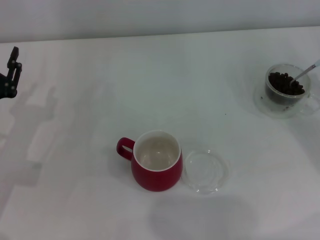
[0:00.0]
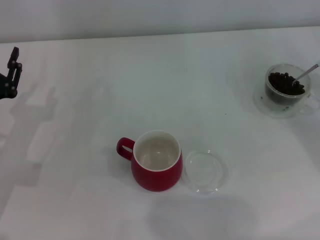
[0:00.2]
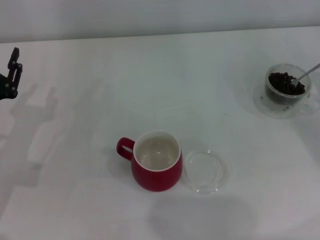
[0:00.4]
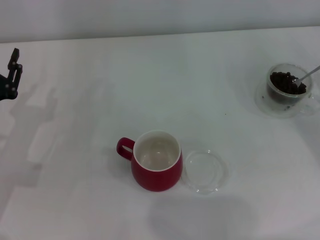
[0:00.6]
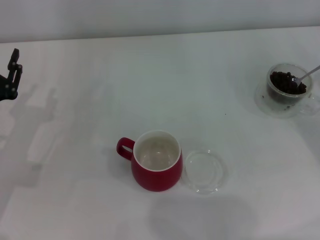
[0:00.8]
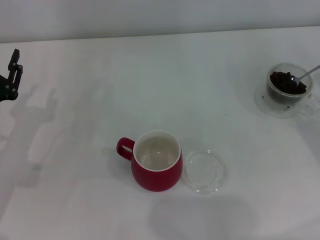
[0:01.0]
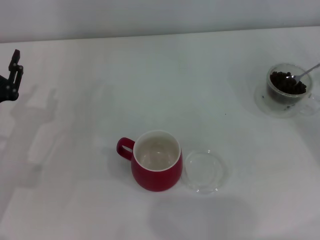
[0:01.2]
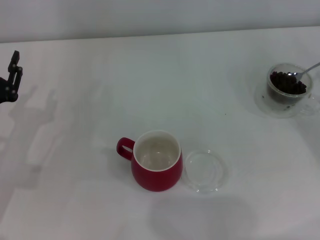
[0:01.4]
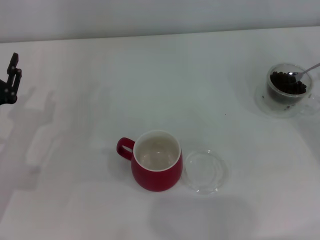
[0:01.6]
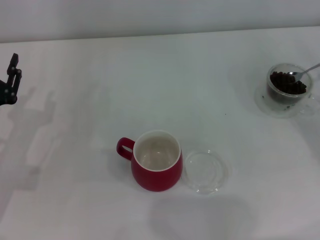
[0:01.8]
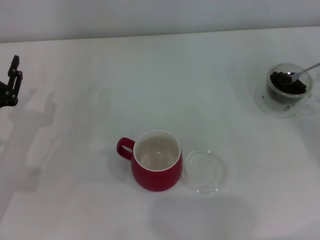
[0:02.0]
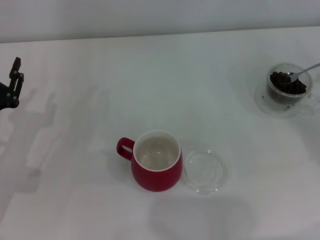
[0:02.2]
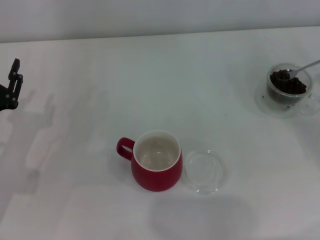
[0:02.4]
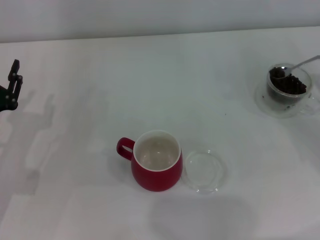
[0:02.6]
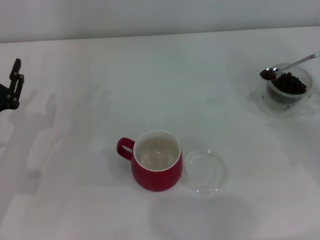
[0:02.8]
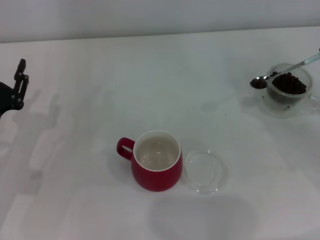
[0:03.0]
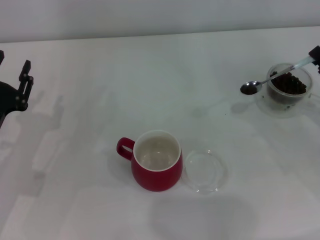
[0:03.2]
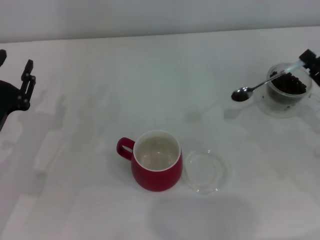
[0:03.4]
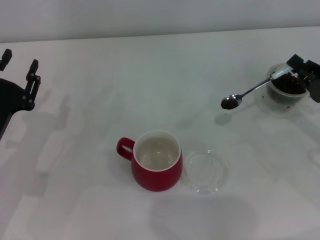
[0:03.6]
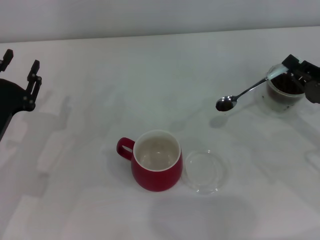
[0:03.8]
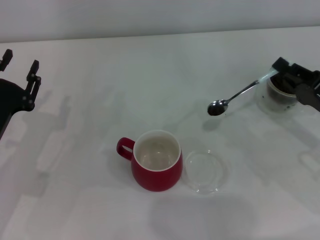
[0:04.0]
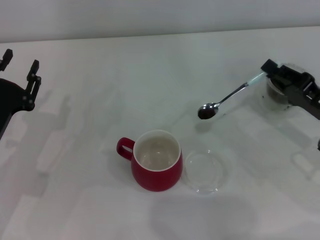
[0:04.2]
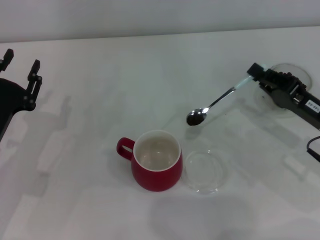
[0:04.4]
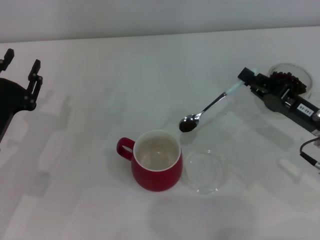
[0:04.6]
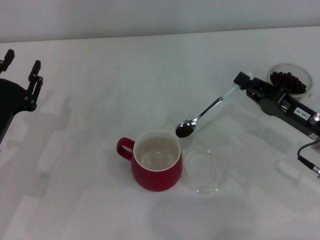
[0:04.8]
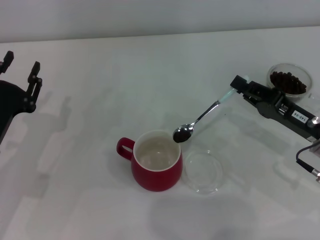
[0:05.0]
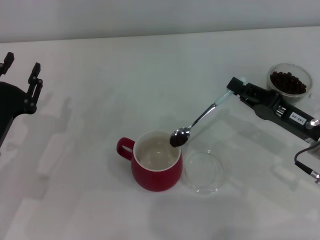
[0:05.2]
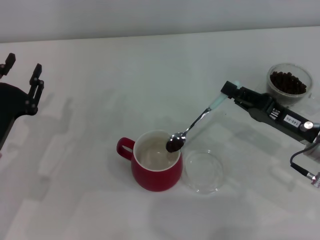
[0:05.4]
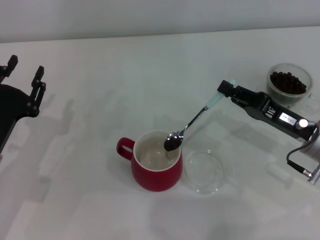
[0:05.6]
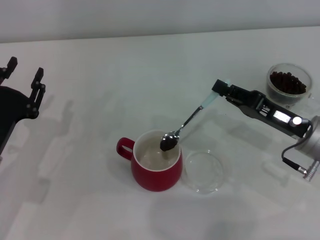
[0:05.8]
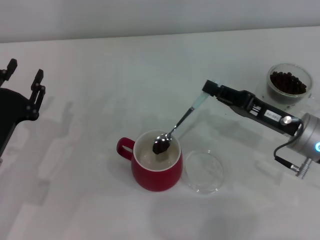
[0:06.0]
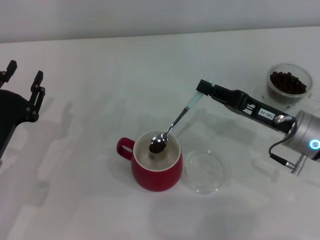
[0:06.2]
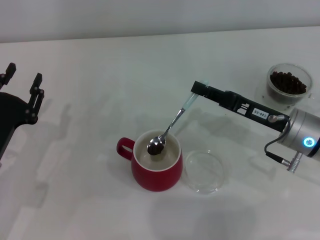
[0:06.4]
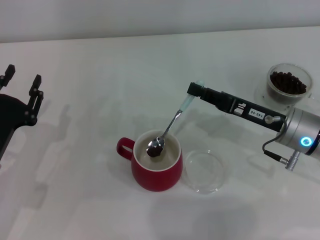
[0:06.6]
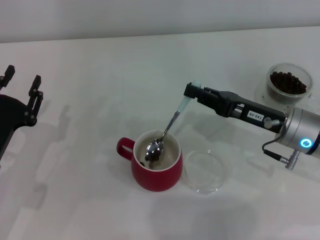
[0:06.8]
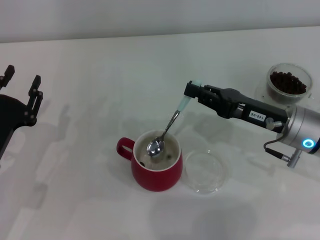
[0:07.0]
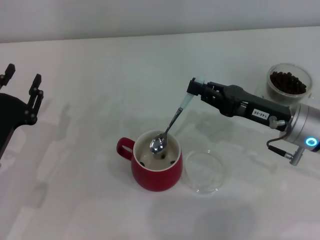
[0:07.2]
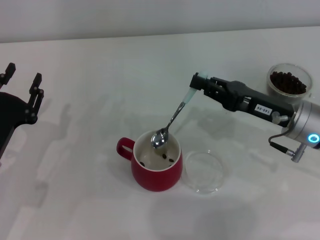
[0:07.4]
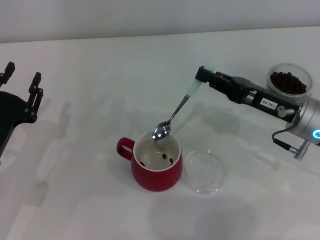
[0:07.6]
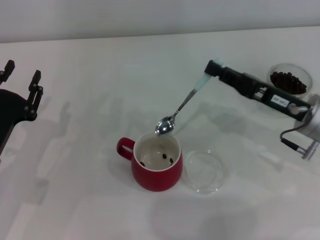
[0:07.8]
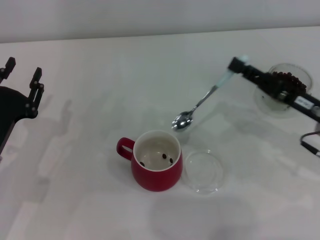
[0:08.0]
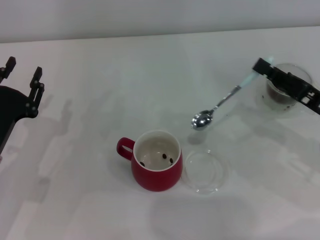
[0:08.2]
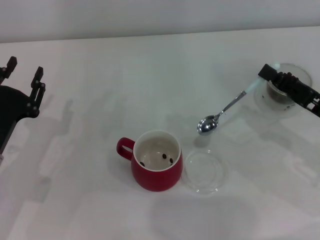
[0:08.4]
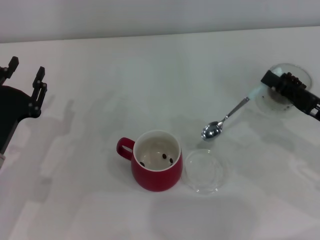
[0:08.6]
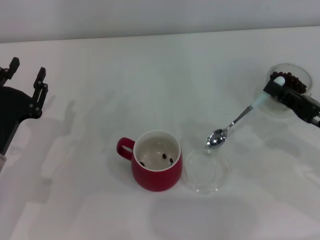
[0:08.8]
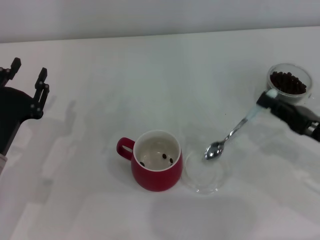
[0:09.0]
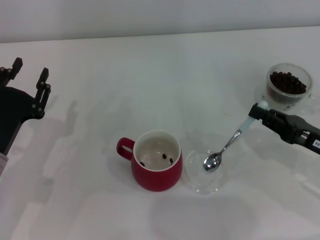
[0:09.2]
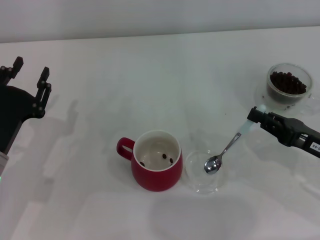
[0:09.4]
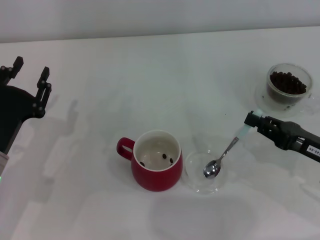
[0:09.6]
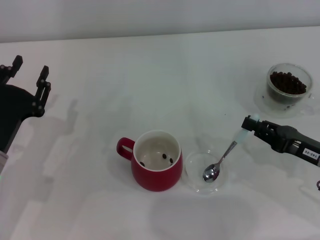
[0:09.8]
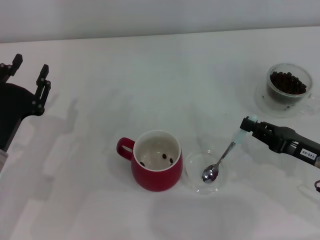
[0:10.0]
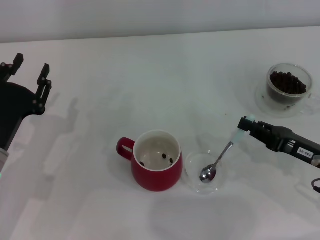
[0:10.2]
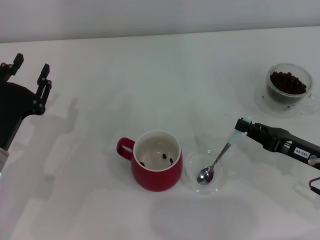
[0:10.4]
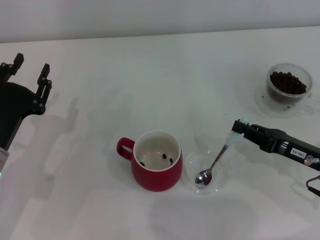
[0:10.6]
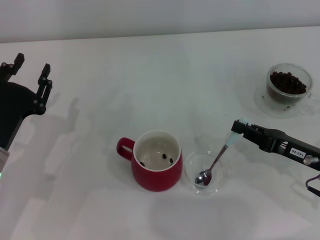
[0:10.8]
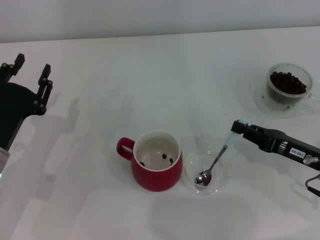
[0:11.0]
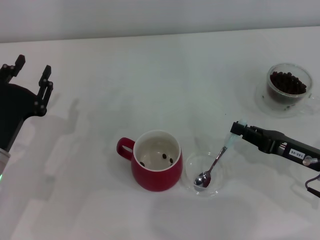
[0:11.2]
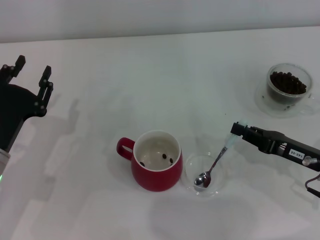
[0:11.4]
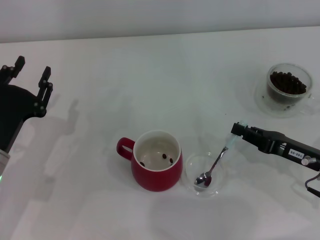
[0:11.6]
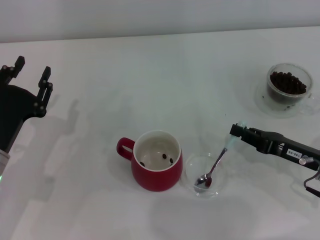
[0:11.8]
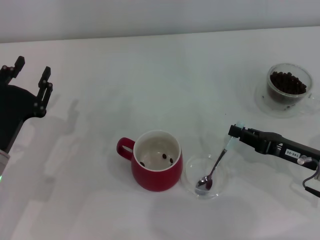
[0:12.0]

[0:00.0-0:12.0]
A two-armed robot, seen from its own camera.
Task of the whole recording: Use a blue spoon to take out the coffee beans from the glass and pour them into the red cup.
Step, 0:00.0 to 0:07.8: Scoop a spoonful of beans into the cup with the right gripper.
0:00.0 to 0:01.6: The grippers move only a little.
0:01.6 to 0:03.0: The grippers move only a little.
0:03.0 to 0:04.4: The right gripper goes about 10 cm to the left.
0:04.4 to 0:06.0: The grippers move only a little.
0:07.6 to 0:09.0: The right gripper is displaced to the right and backward by about 10 cm.
0:09.0 to 0:12.0: The grippers make only small movements.

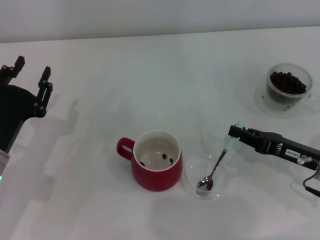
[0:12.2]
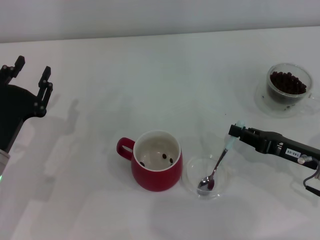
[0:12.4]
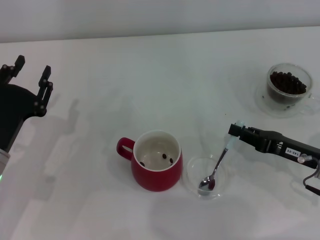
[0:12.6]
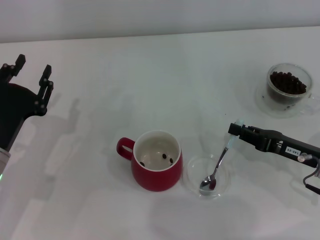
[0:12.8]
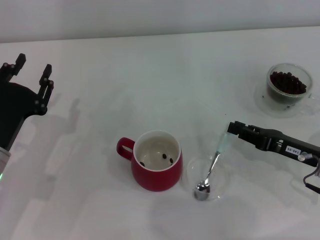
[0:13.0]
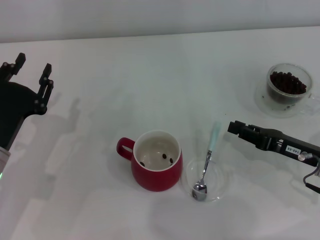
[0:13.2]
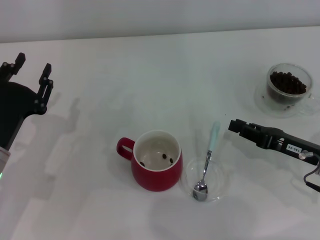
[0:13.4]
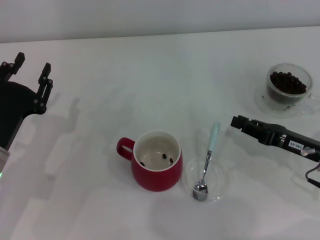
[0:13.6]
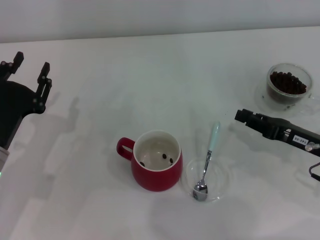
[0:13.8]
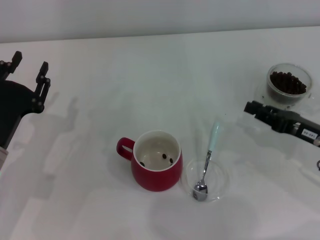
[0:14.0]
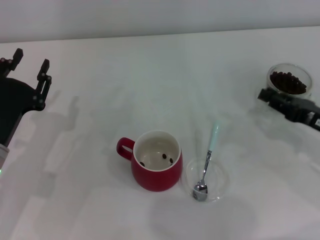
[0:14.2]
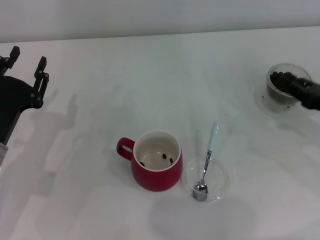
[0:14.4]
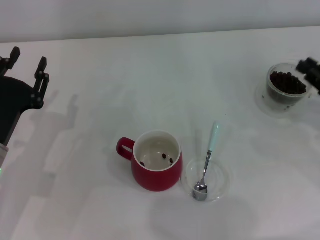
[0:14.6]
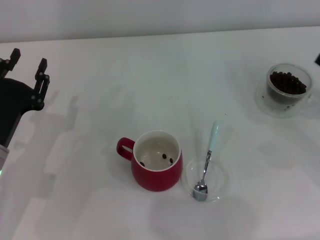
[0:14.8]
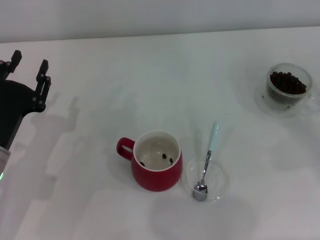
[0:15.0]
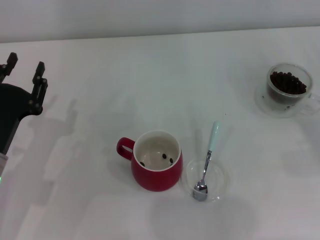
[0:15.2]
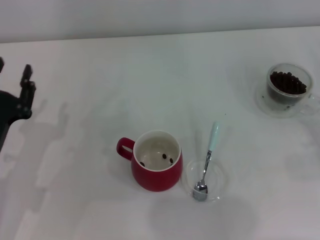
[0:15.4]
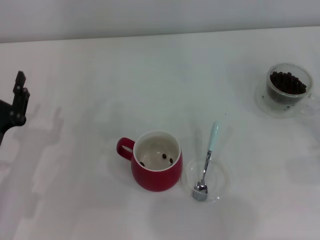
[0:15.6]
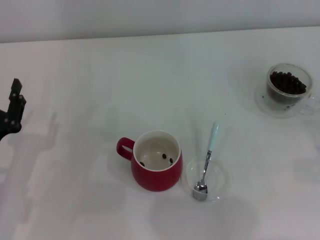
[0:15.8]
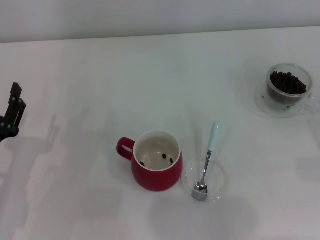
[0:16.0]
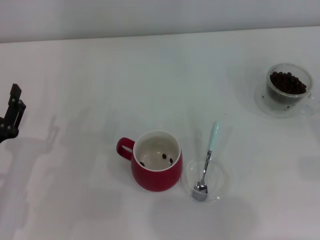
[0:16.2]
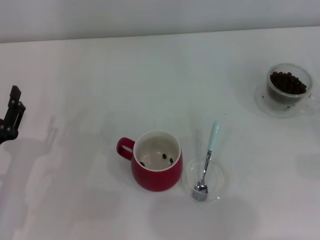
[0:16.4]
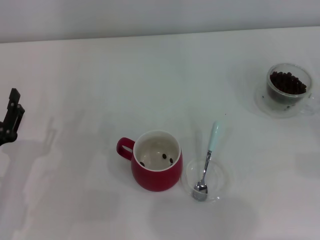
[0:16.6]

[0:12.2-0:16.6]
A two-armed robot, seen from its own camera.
Task of the whole recording: Use a blue spoon to take out the coffee beans from the glass and pour them into the red cup.
0:12.2 to 0:13.6: Both grippers stay put.
0:13.6 to 0:15.2: The right gripper goes about 10 cm to the right.
0:15.2 to 0:16.6: The left gripper changes place by some 5 cm.

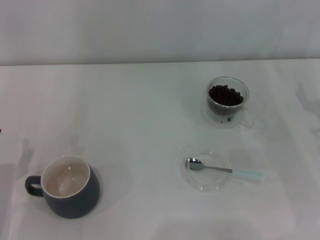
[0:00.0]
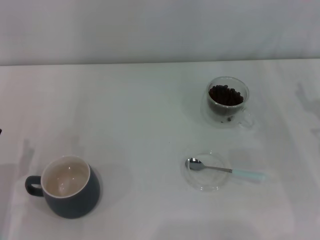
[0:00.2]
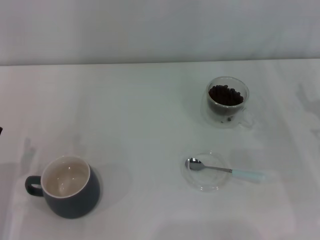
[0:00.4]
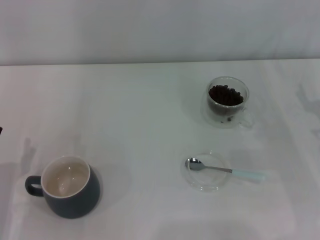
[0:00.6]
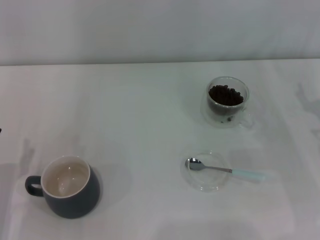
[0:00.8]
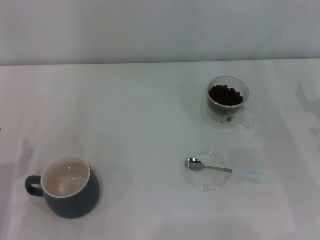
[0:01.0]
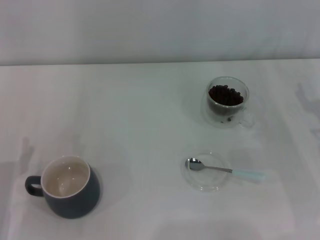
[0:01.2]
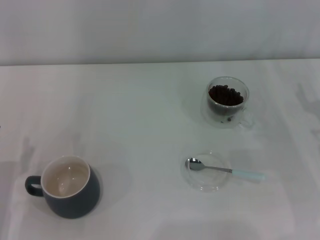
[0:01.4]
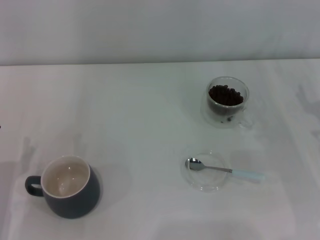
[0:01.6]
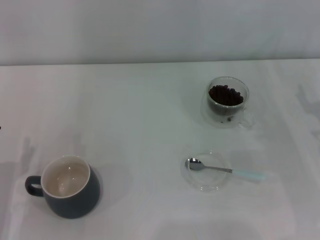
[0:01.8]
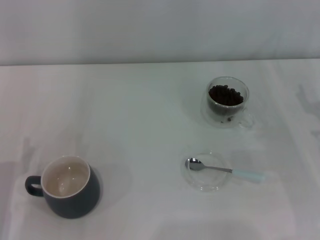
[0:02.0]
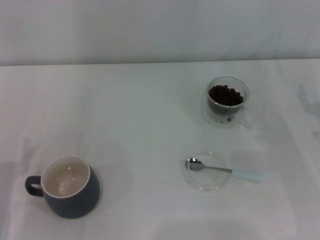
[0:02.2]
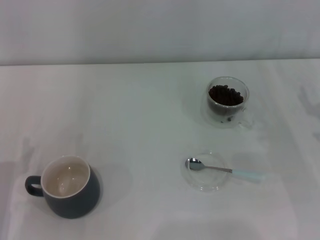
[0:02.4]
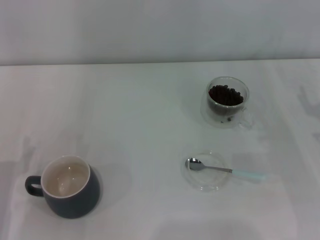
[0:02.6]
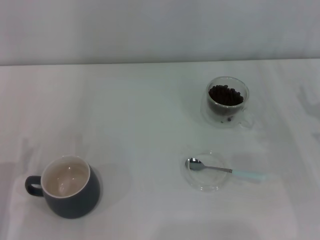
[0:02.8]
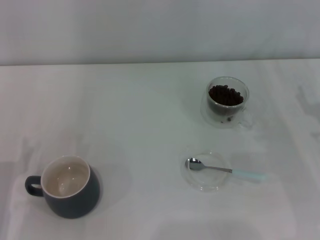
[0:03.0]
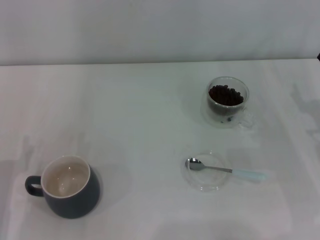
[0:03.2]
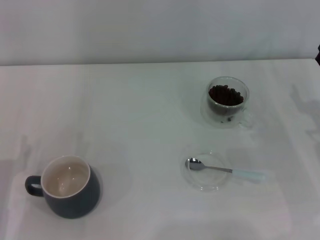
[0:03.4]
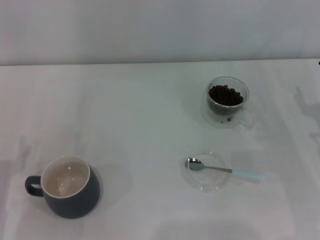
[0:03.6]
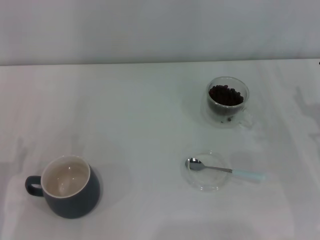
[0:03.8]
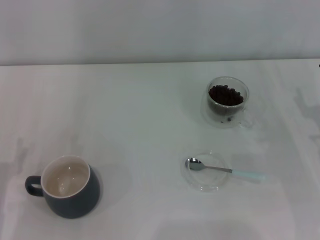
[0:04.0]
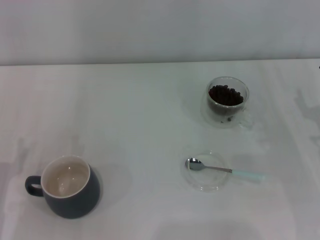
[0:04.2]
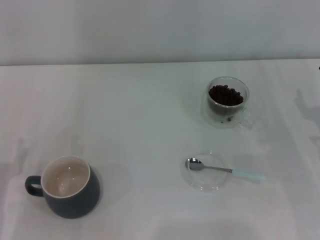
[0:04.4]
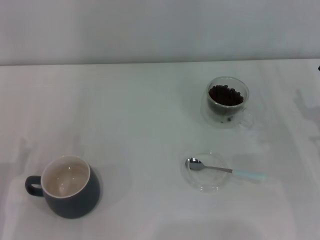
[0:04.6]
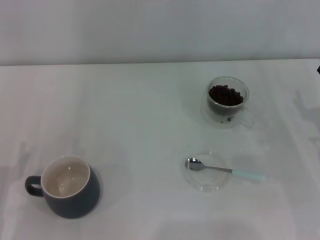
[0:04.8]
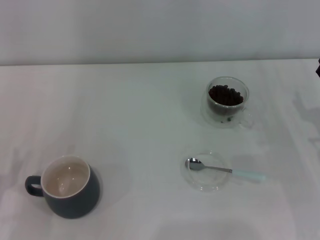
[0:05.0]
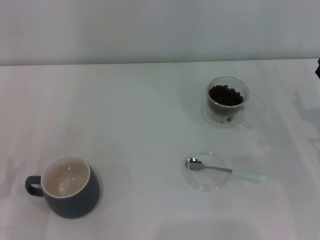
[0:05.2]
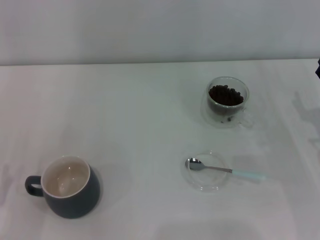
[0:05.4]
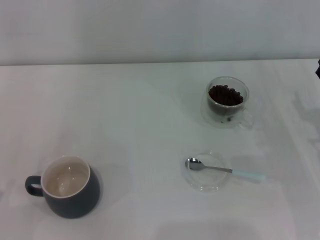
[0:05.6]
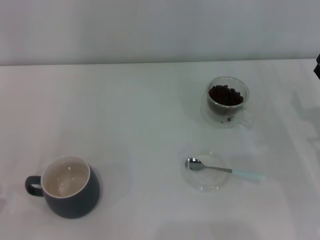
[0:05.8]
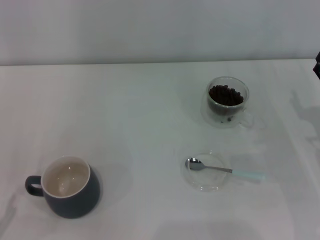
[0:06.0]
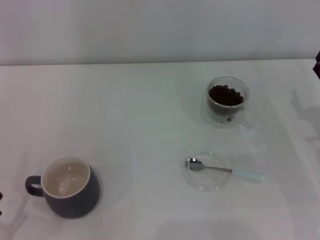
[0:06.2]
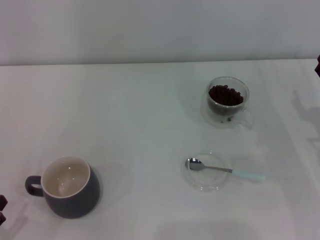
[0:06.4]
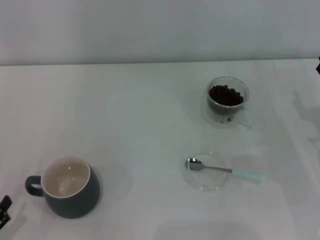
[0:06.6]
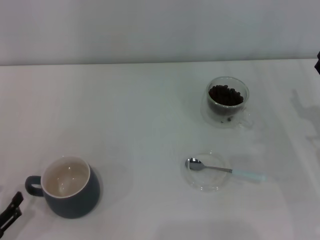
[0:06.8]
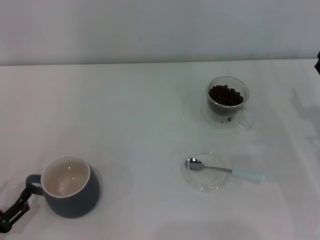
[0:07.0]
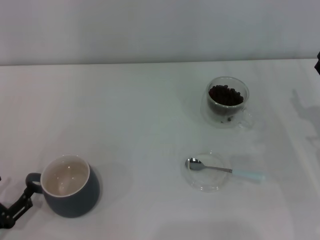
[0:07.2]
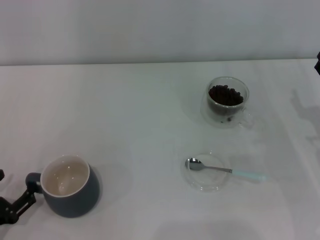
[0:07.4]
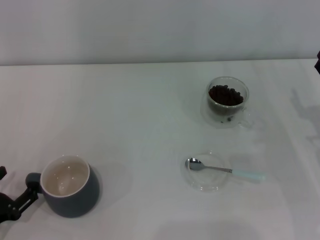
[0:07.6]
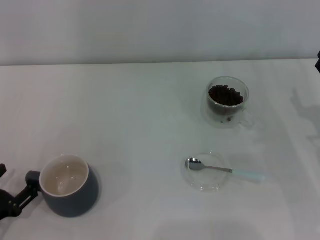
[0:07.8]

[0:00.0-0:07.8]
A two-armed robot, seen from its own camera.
Task of the whole recording: Use a blue spoon to take out the coffee beans from the glass and pour them into the gray cup.
0:00.0 to 0:03.2: The two grippers keep their place.
0:06.2 to 0:07.8: The left gripper travels forward by roughly 5 cm.
